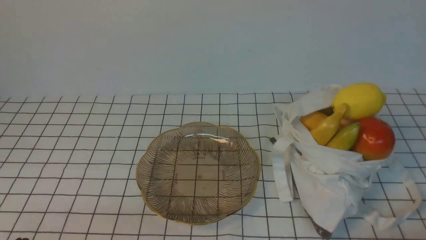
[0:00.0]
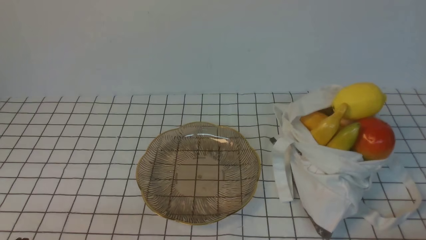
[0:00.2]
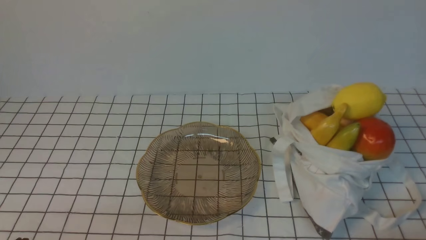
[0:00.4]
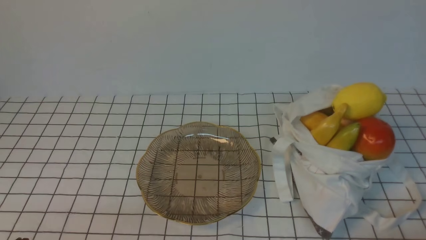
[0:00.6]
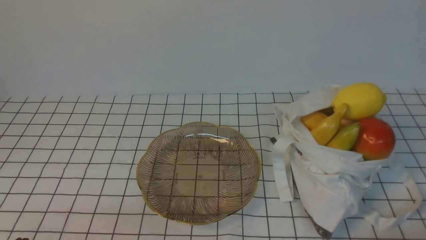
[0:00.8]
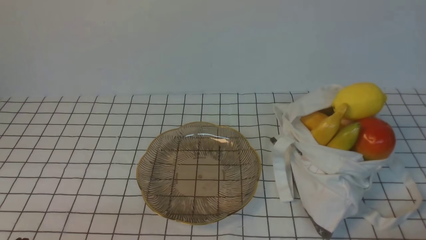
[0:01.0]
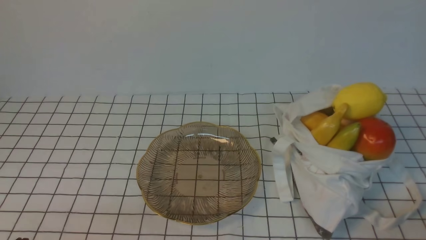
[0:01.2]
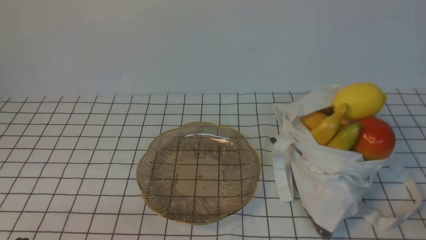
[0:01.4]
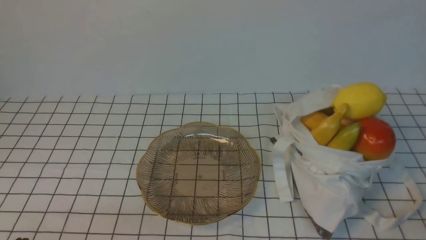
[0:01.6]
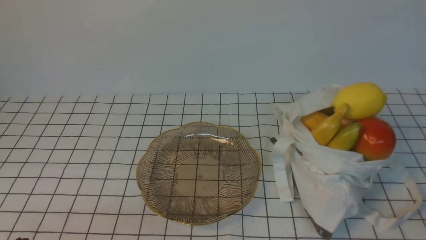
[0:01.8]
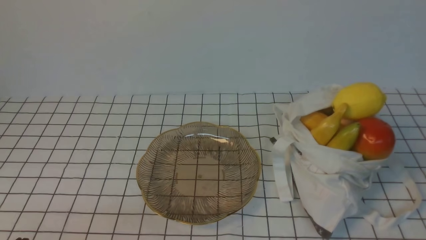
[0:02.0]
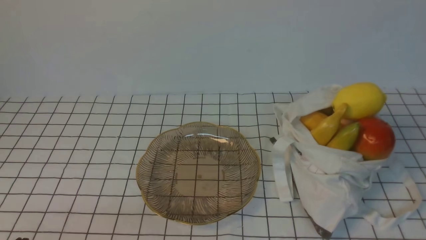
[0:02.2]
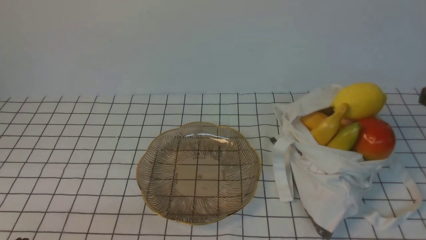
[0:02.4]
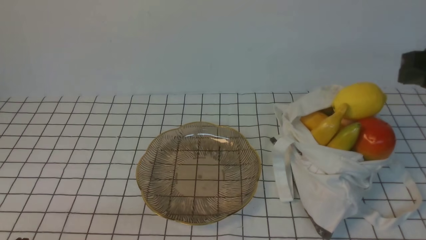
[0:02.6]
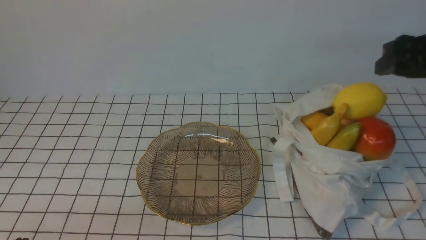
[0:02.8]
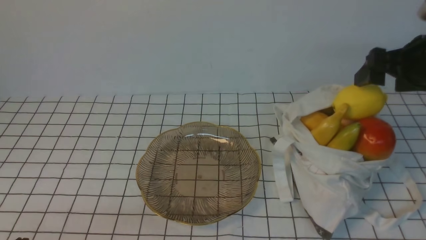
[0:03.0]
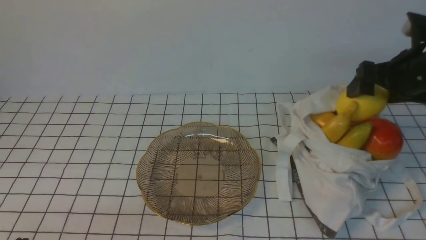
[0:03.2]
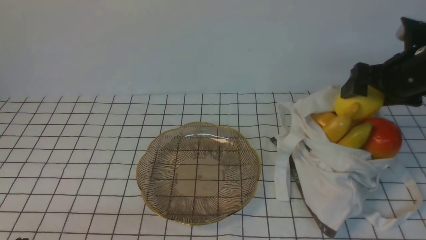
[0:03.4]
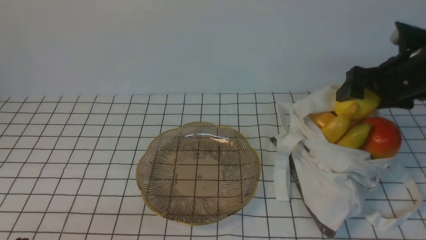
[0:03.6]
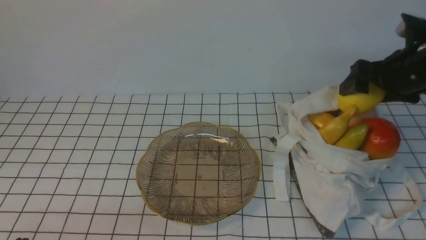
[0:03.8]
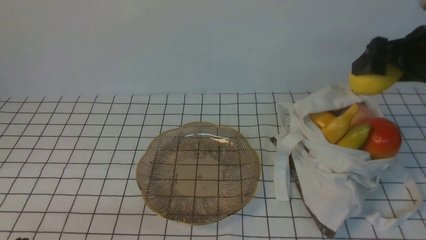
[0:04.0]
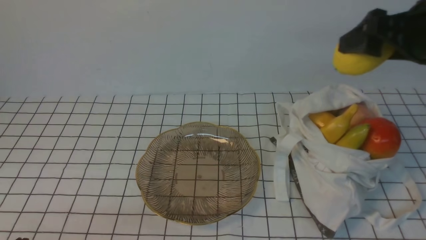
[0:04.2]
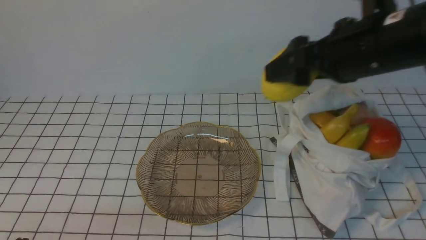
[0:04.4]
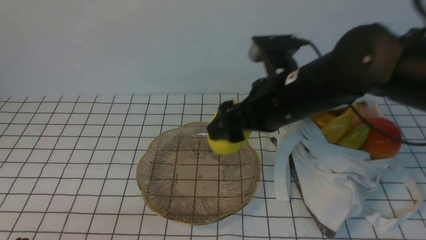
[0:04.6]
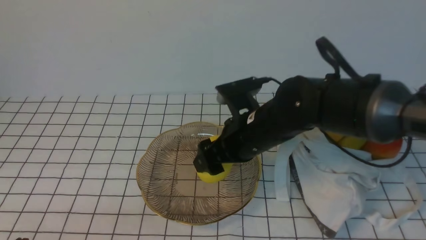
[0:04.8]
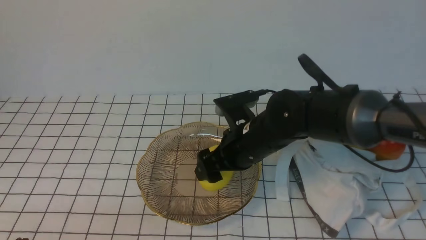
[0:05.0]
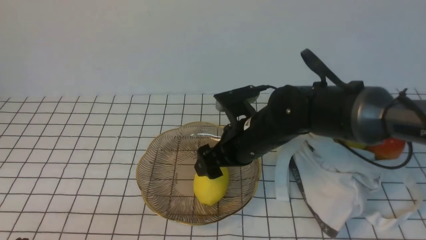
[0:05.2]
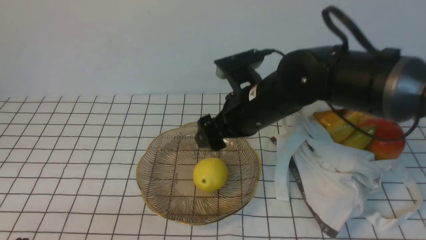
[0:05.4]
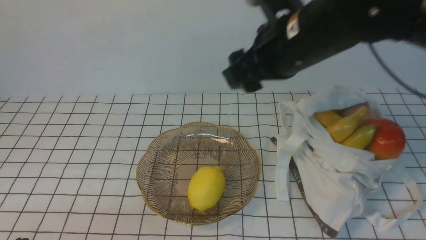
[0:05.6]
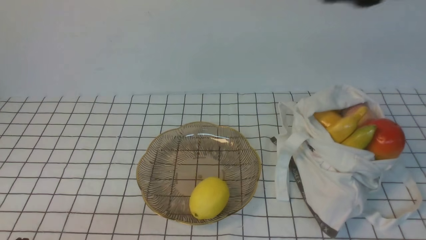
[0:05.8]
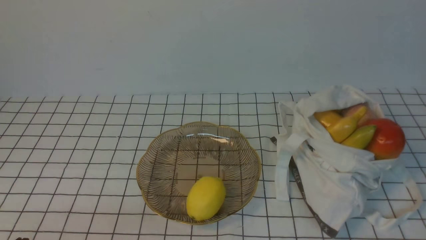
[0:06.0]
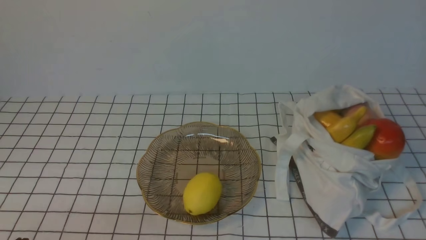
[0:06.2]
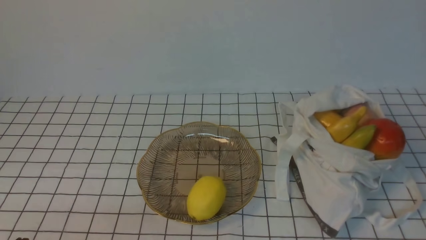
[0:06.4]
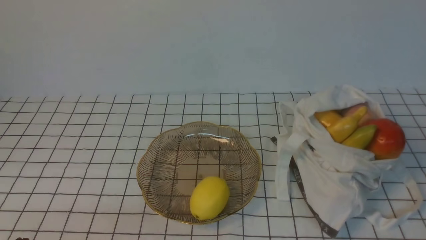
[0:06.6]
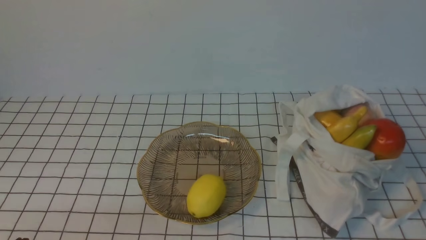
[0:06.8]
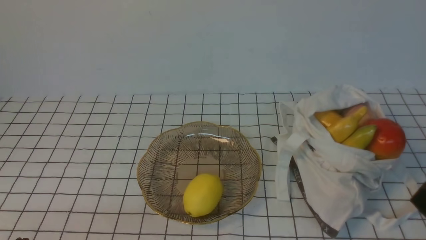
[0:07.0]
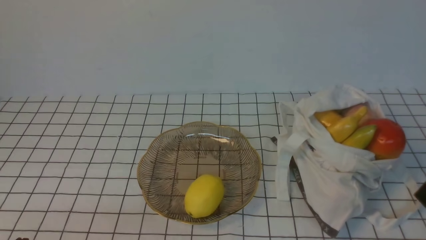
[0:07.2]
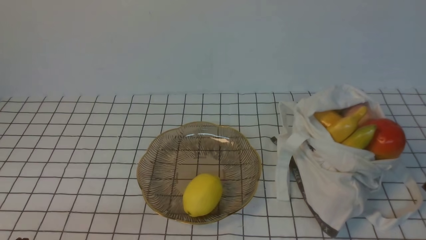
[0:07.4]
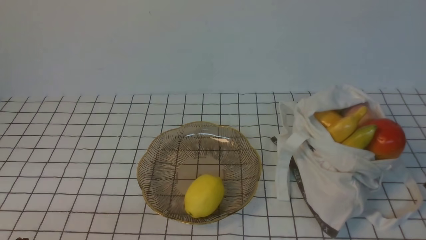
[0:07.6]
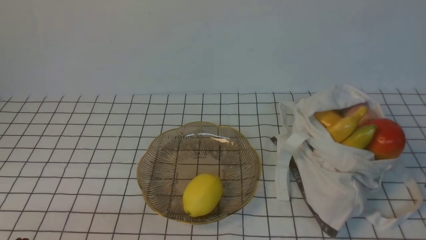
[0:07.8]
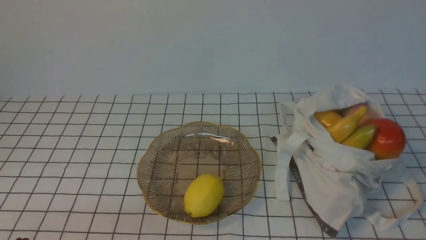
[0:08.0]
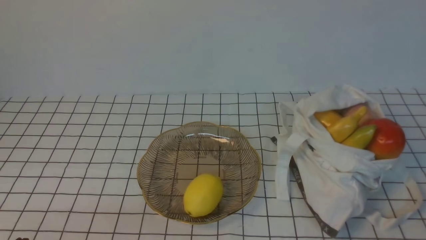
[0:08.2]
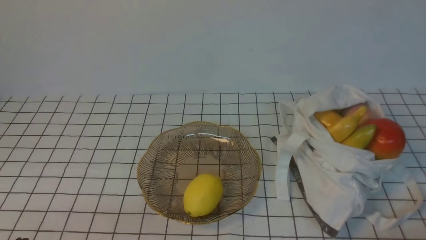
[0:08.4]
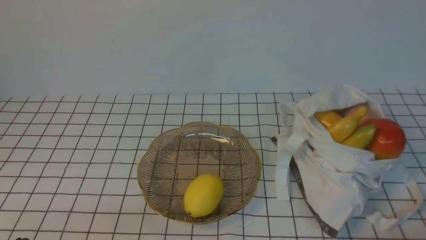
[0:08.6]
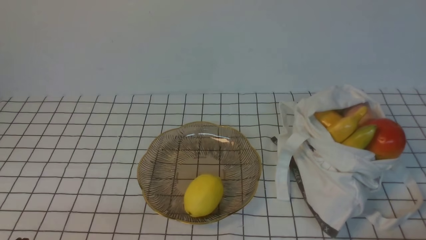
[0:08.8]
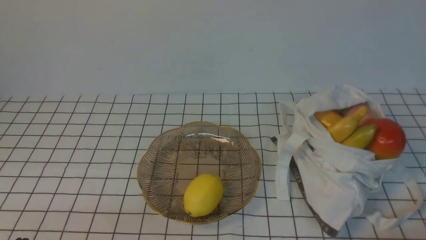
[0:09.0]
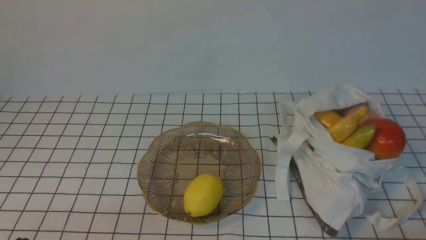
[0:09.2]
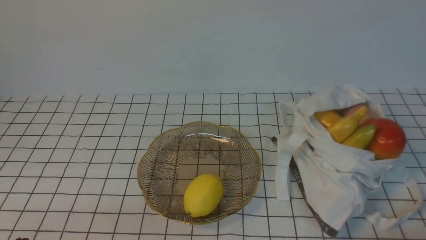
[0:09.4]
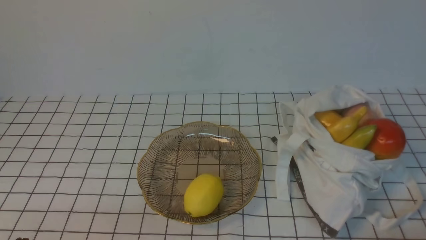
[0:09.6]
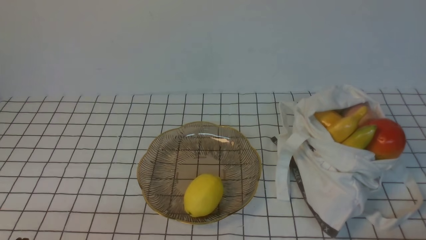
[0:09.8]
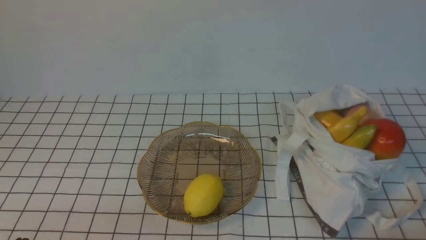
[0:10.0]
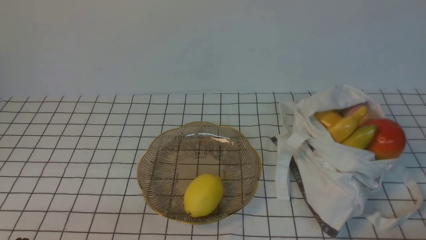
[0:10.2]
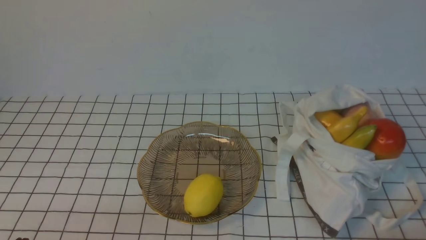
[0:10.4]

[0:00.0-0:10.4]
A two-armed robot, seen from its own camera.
Step, 0:00.0 to 0:03.8: use the right arm to grab a lemon from the bag.
Step, 0:04.0 to 0:05.4: use the right arm to put the lemon into the empty plate on the left.
0:01.4 to 0:03.0: The right gripper shifts about 30 cm forward, and opens.
0:03.0 to 0:04.4: The right gripper shifts roughly 15 cm to the left.
0:04.4 to 0:06.0: The right gripper goes about 25 cm backward, upward and to the right, and closes its fingers.
0:09.0 to 0:10.4: Both grippers stay put.

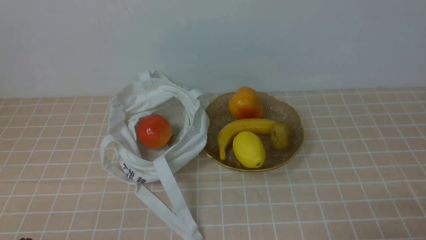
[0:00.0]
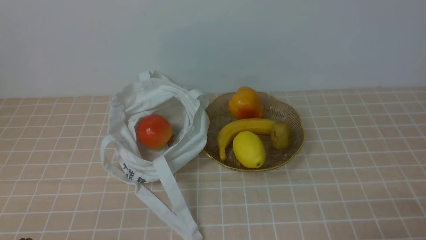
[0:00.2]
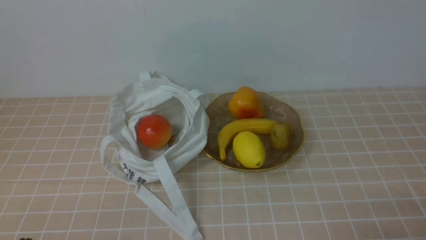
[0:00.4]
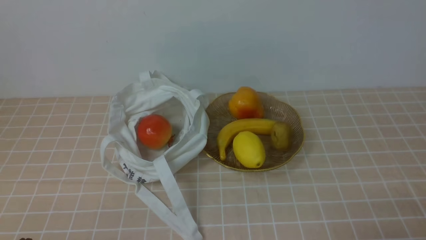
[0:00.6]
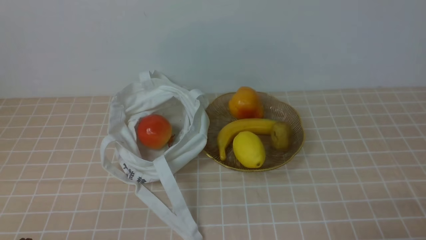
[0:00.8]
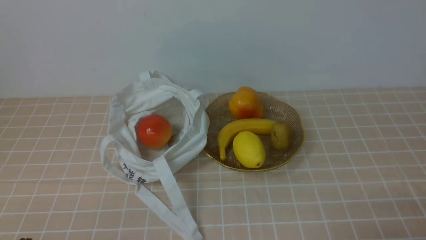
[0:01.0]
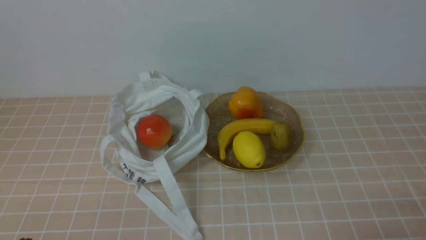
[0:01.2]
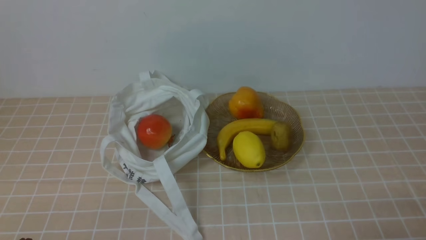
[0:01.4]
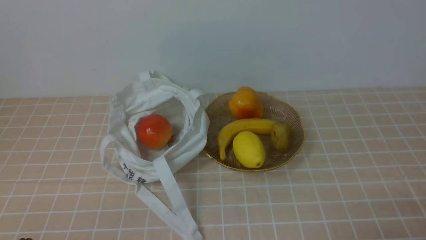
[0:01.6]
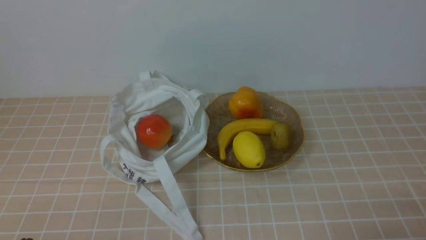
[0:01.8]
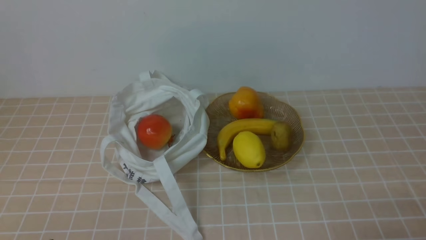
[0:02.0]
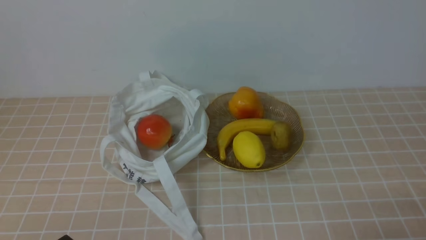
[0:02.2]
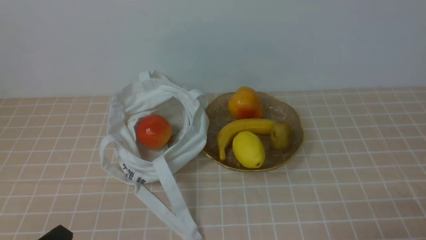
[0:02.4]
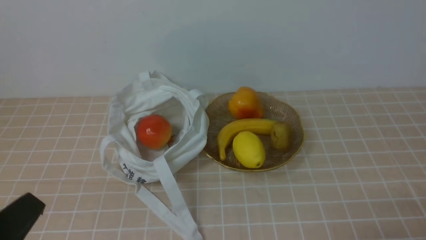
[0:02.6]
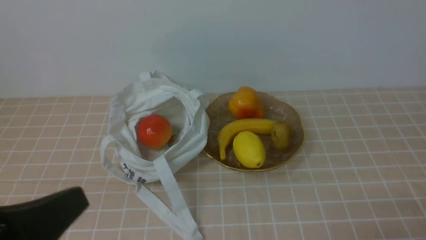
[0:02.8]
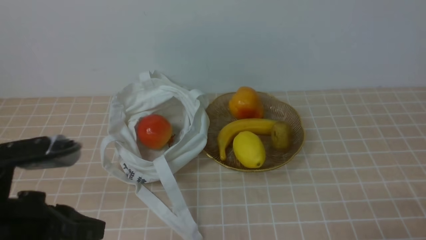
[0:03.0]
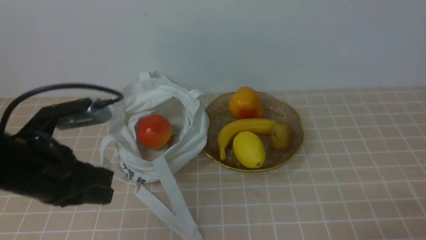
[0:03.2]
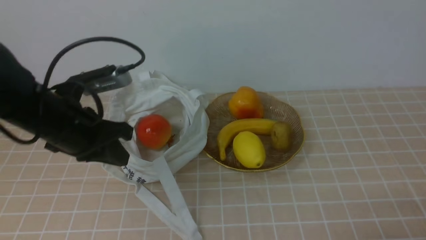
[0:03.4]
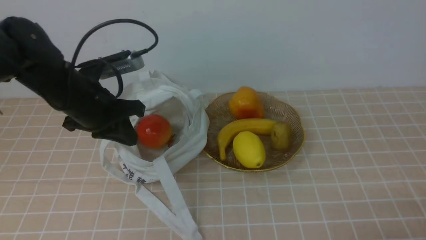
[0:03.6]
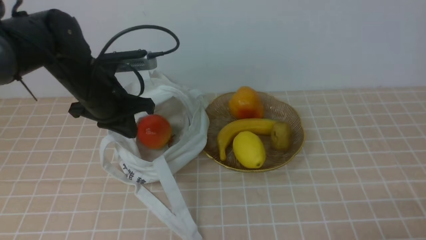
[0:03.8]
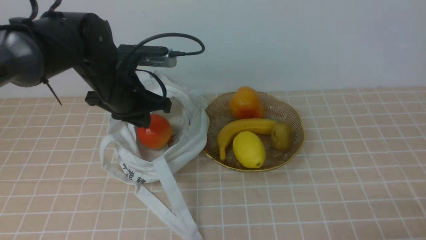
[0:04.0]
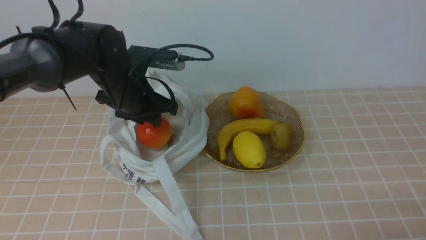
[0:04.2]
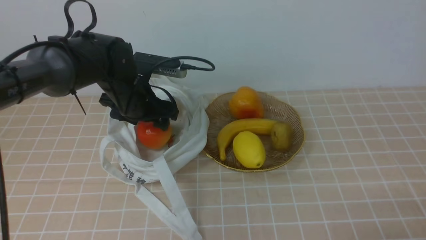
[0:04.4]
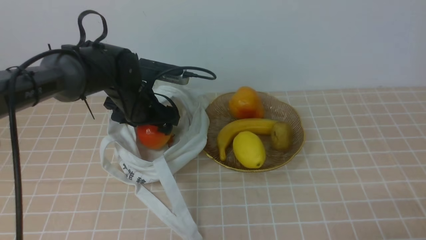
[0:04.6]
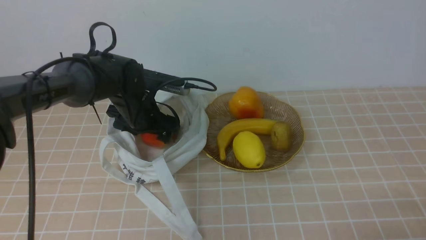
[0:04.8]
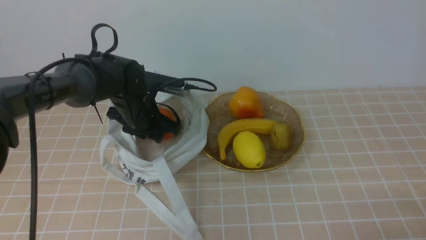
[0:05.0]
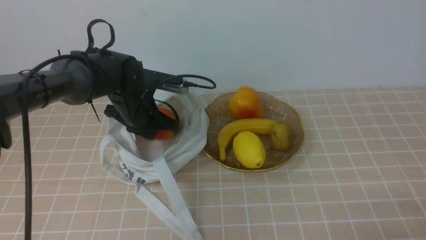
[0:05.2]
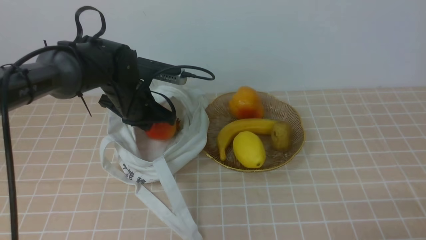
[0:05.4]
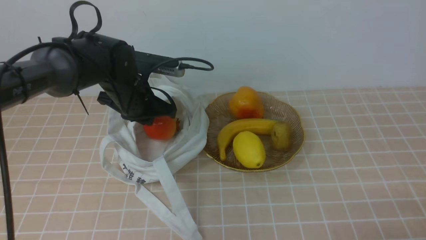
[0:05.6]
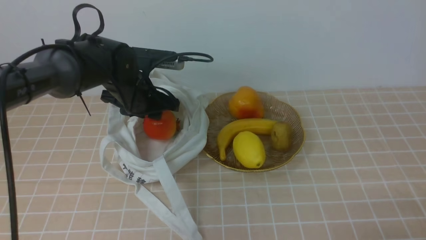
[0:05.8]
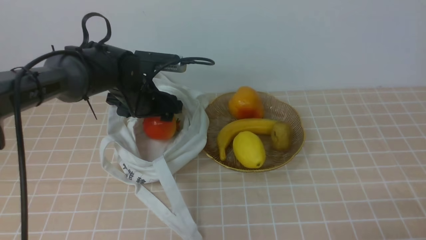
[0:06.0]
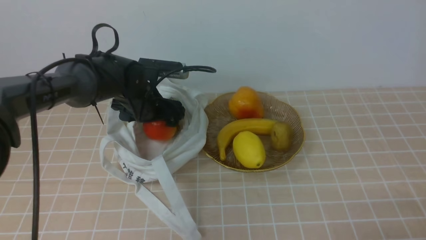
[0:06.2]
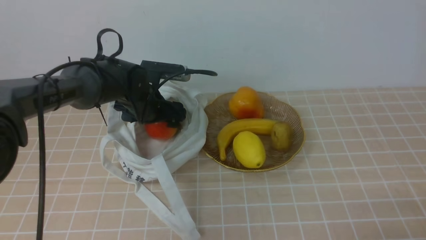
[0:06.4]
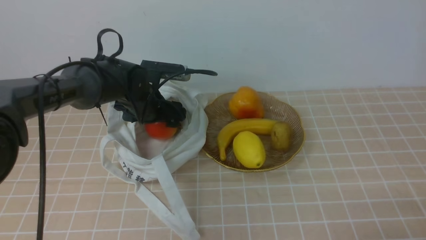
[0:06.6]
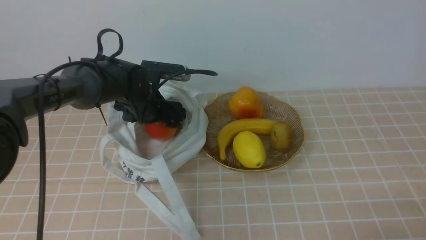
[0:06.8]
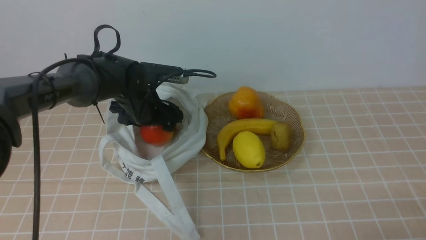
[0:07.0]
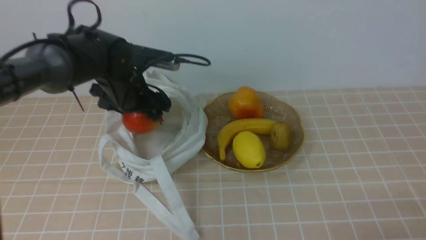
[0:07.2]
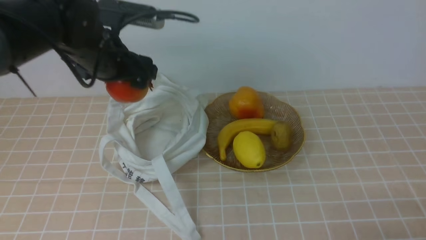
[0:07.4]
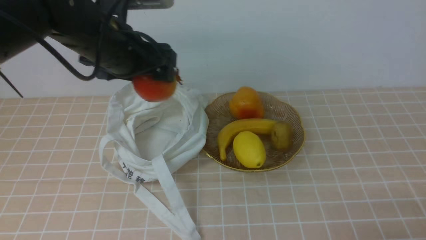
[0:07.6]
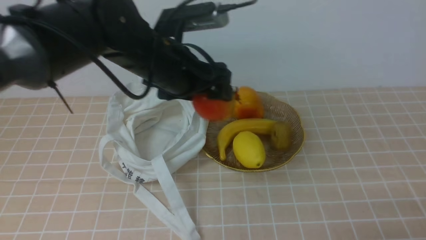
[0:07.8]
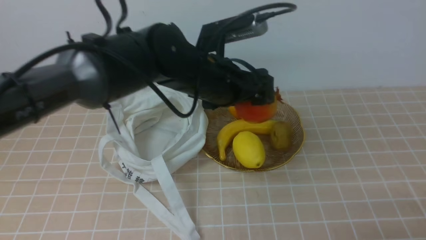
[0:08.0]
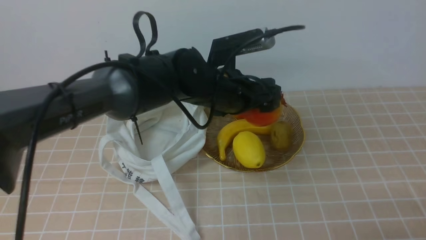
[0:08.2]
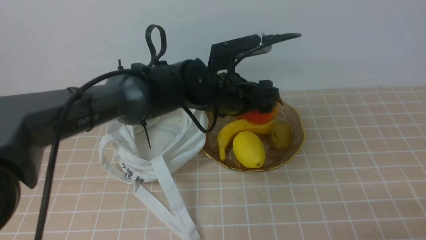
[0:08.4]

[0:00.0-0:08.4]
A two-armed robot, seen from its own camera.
Step, 0:00.0 to 0:07.0: use the left arm to grab a pomegranate from the bag.
0:01.4 to 0:02.8: The left gripper travels upward by approximately 10 cm.
0:02.8 to 0:04.2: The left gripper heads forward, covering some 30 cm.
0:04.2 to 0:05.6: The left gripper opens, then closes once more.
0:05.6 to 0:07.0: The left gripper opens up.
0:07.0 to 0:08.4: The left gripper heads to the right and upward, covering approximately 15 cm.
